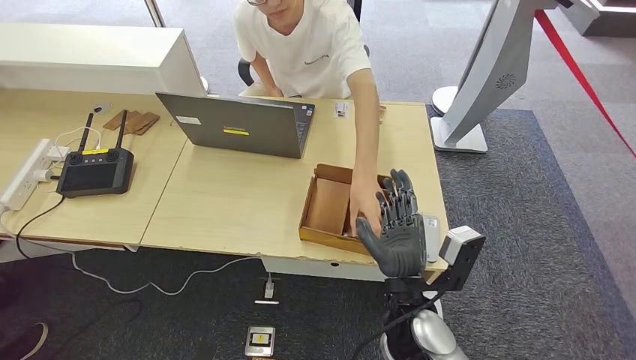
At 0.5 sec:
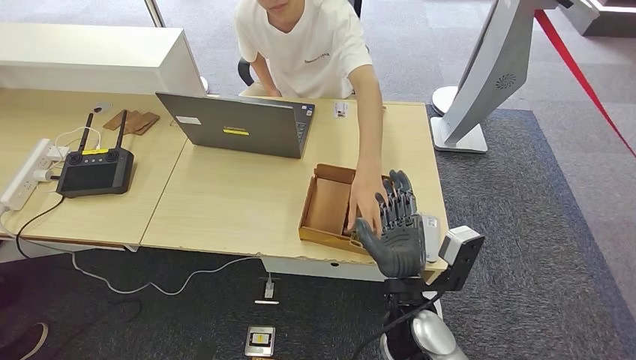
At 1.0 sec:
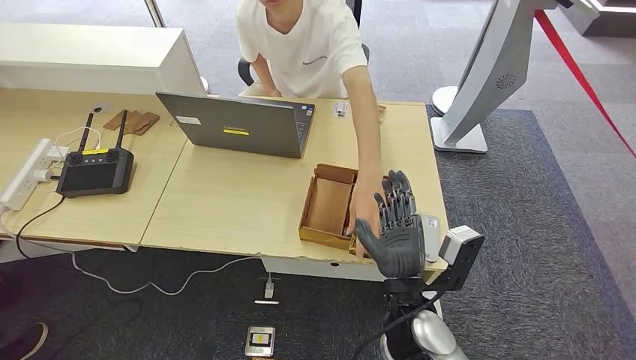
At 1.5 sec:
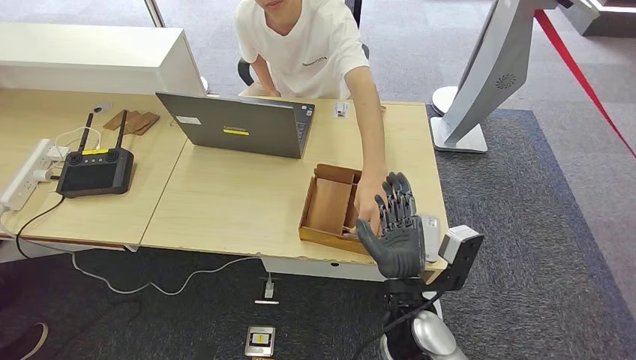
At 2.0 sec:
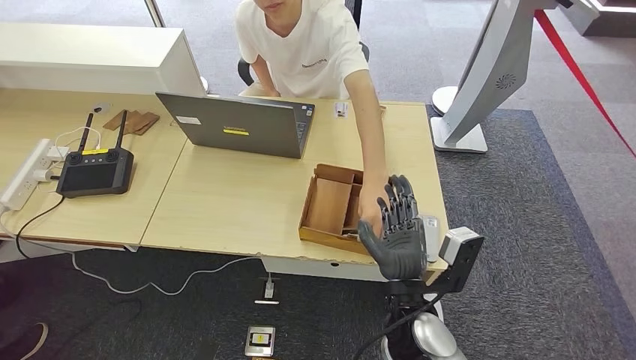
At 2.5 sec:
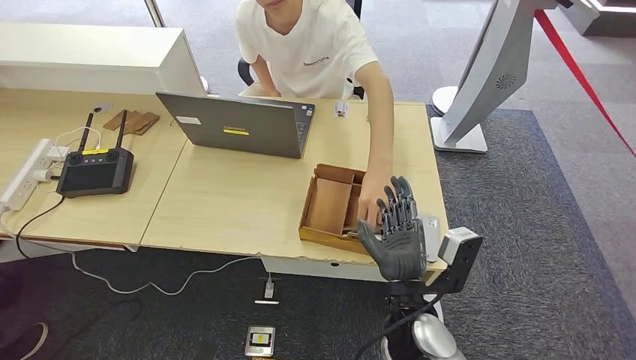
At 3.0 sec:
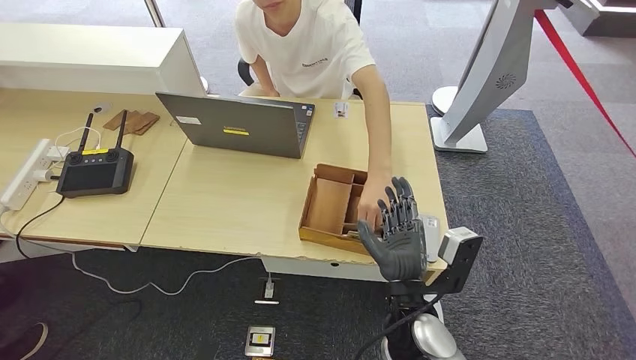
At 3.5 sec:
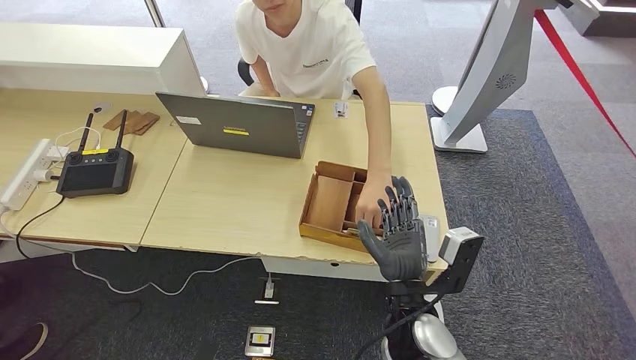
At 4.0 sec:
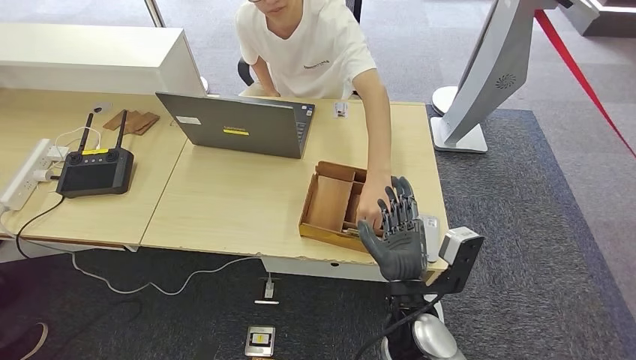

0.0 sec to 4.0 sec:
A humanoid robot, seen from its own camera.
Step, 1.5 sec to 3.5 sec: Hand the room key to the person.
0.0 sec to 4.0 sec: Both hands stay about where they are.
